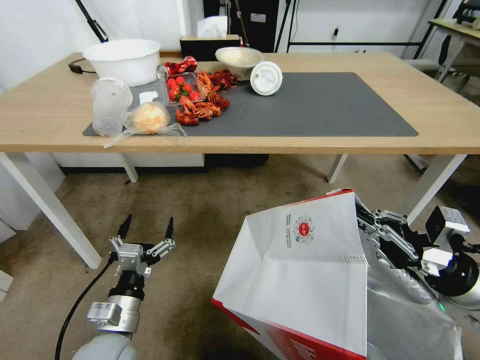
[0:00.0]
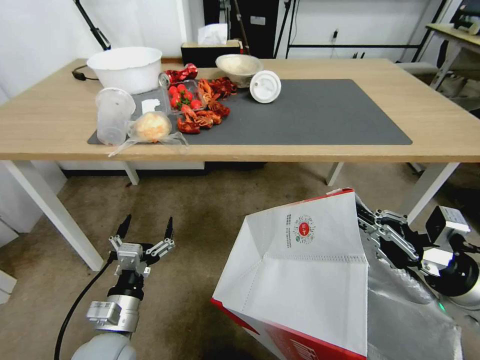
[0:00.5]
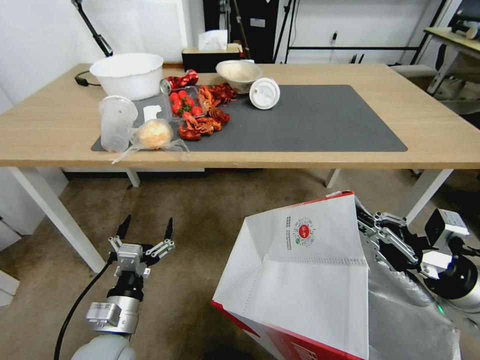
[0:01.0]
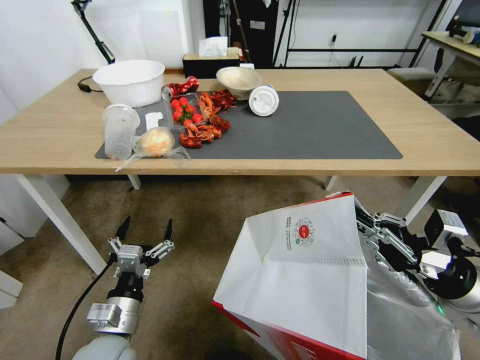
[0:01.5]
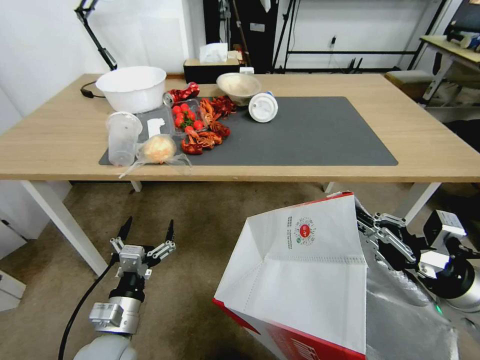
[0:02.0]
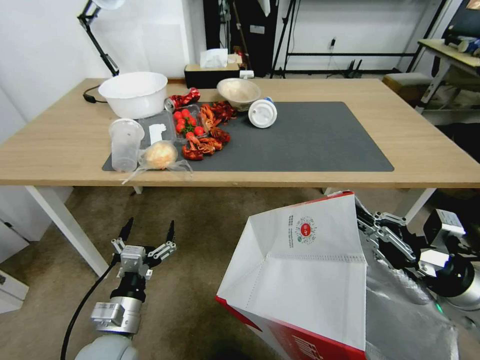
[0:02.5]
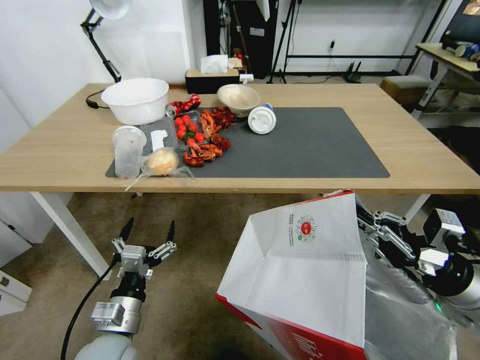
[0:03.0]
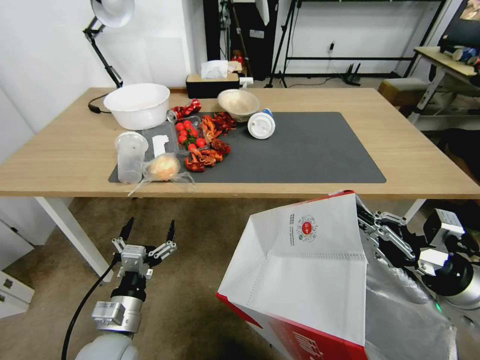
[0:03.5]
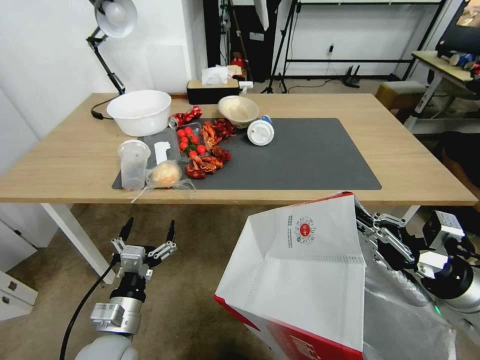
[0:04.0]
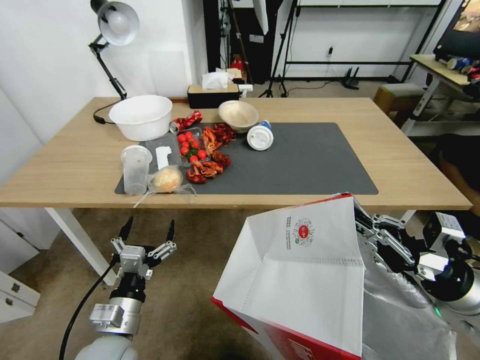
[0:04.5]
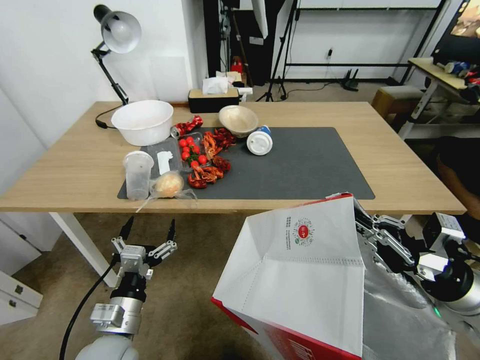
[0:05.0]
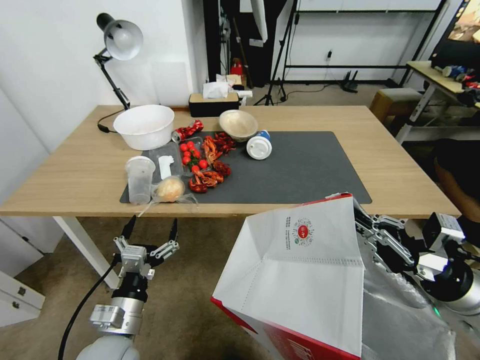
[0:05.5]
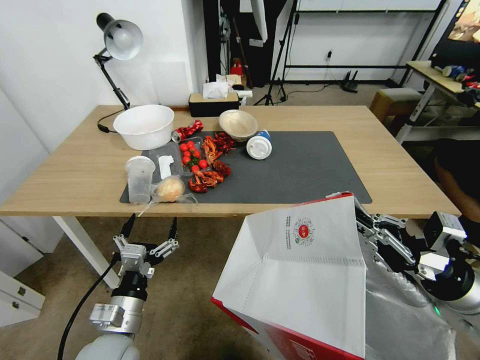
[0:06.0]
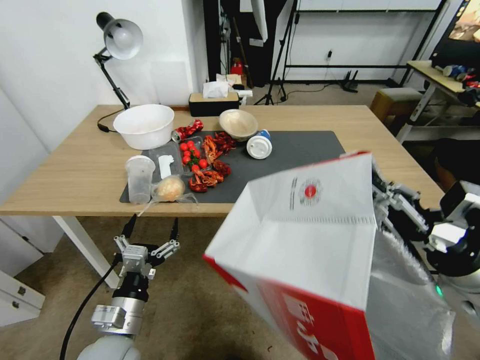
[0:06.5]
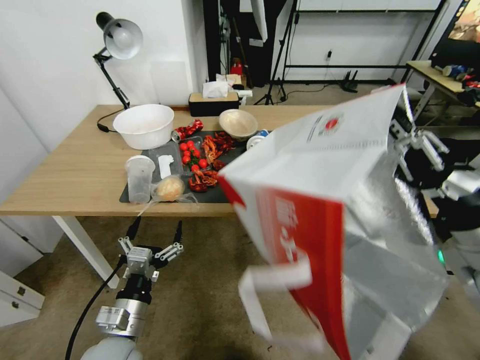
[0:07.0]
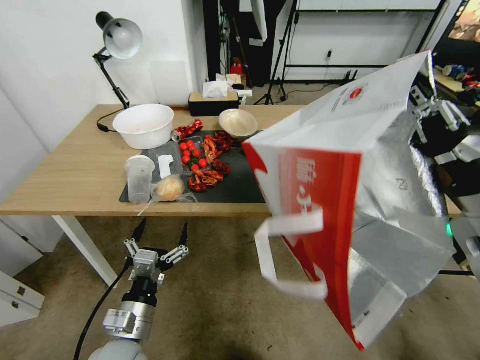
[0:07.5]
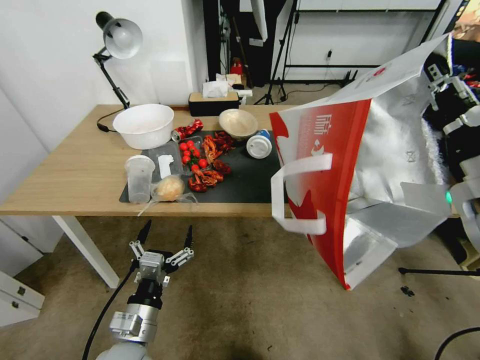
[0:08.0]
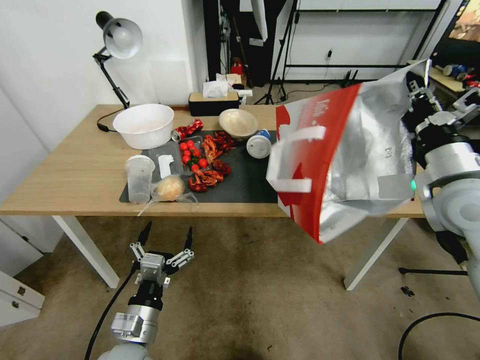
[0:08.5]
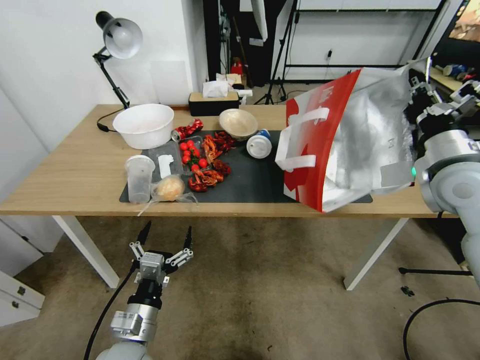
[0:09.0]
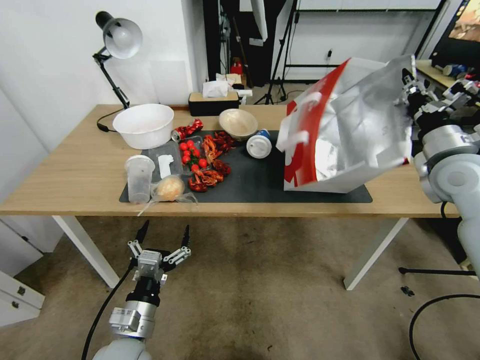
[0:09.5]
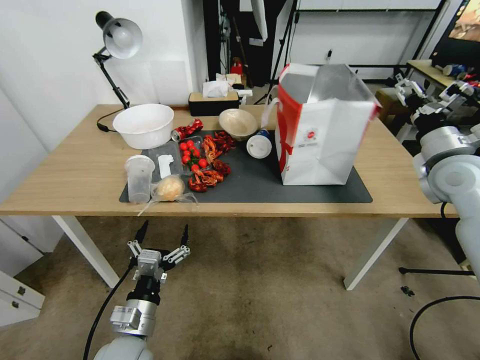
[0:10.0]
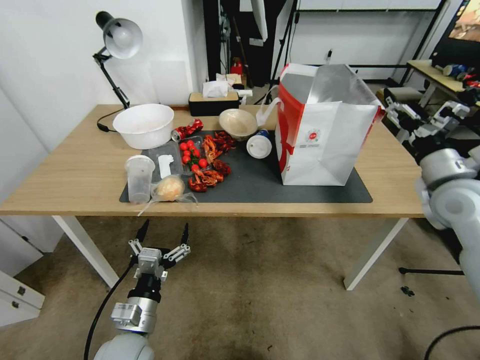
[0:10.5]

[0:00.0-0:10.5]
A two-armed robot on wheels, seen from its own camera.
Task of the whole recording: Pick up the food delivery bag from the floor and place it on the table.
0:06.5 to 0:08.5: The right gripper travels forward and upward by some 15 cm.
0:08.5 to 0:10.5: The right gripper shifts by approximately 5 cm, and opens up.

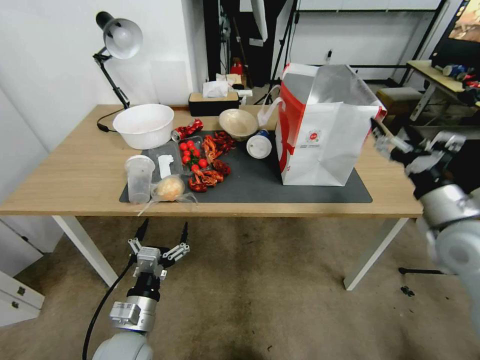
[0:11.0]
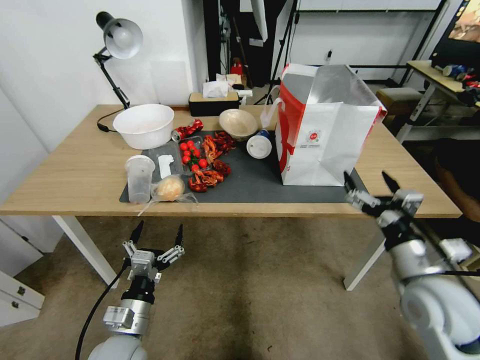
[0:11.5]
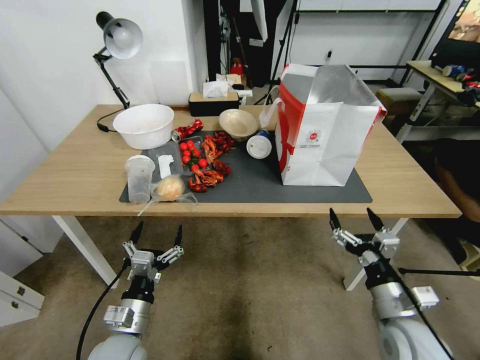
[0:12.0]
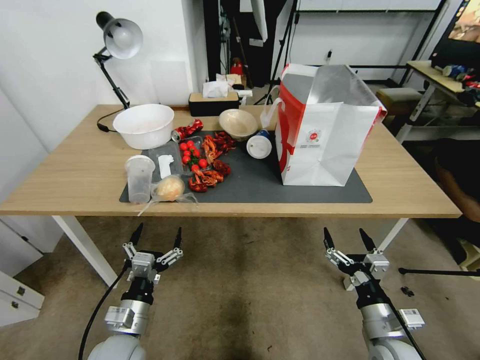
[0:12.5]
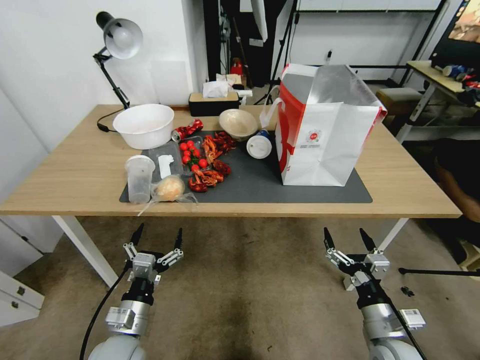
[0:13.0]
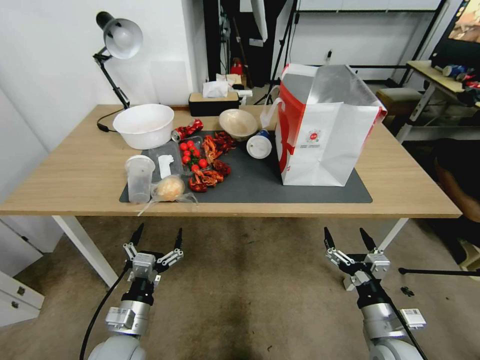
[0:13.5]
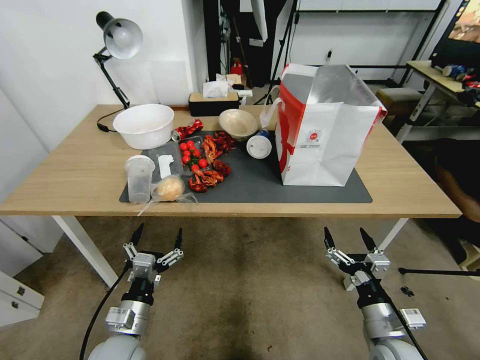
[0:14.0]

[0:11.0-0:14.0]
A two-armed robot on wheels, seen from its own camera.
Task of the whole recording: Pick up the food delivery bag from the floor and place it on the table.
0:11.0 to 0:12.5: The right gripper heads downward and backward, covering about 25 cm.
0:12.5 to 0:14.0: Both grippers stay about where they are.
